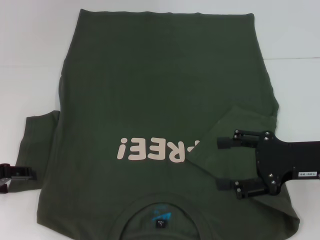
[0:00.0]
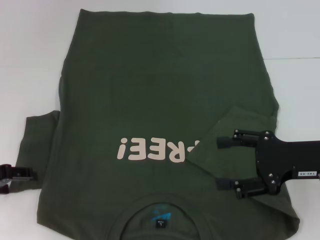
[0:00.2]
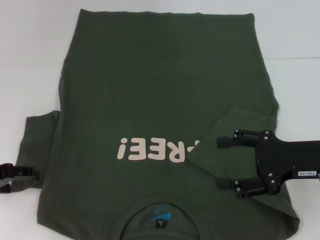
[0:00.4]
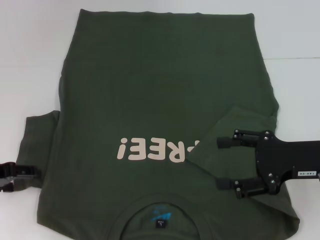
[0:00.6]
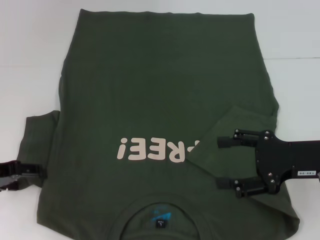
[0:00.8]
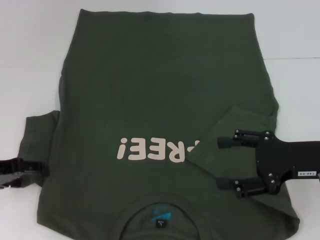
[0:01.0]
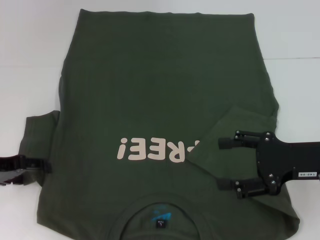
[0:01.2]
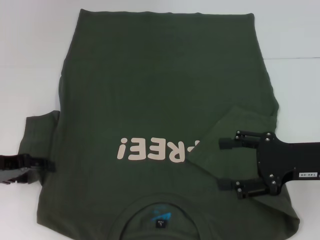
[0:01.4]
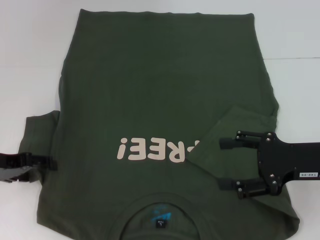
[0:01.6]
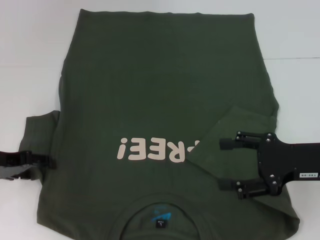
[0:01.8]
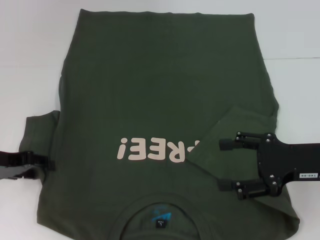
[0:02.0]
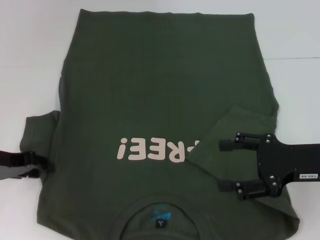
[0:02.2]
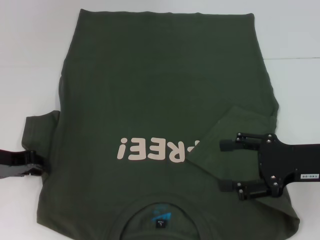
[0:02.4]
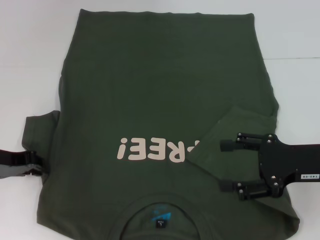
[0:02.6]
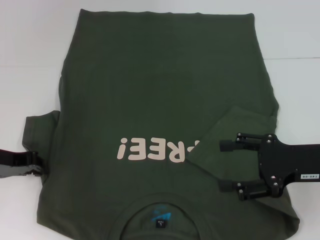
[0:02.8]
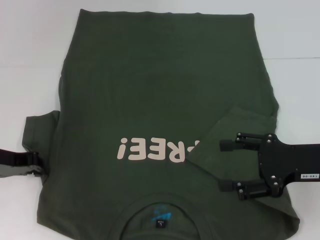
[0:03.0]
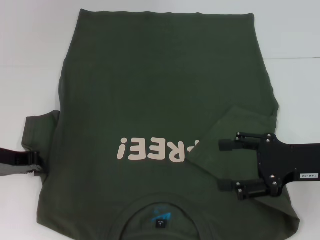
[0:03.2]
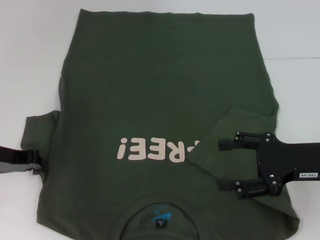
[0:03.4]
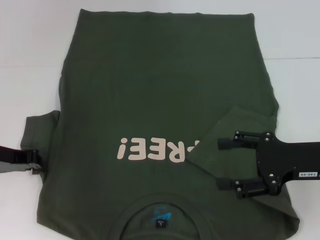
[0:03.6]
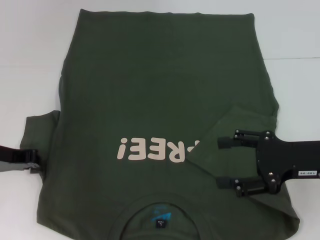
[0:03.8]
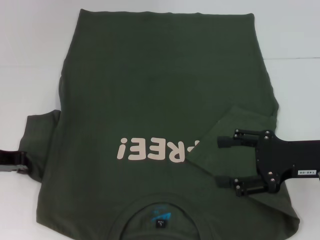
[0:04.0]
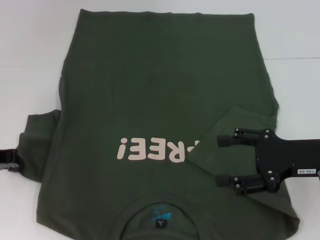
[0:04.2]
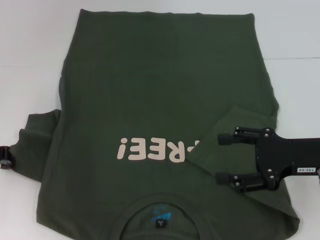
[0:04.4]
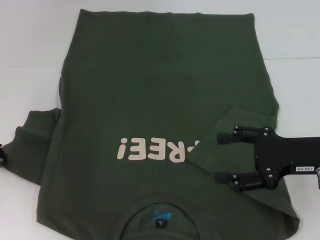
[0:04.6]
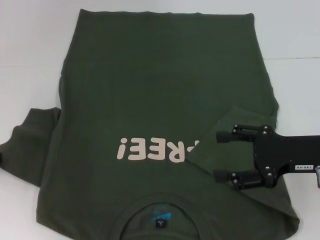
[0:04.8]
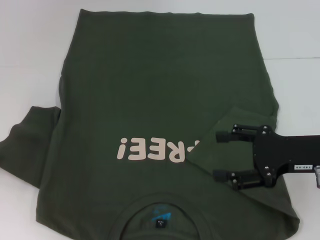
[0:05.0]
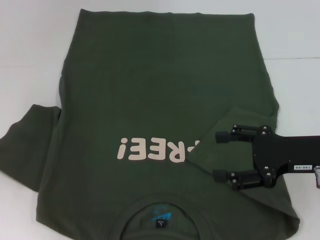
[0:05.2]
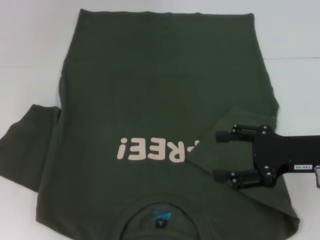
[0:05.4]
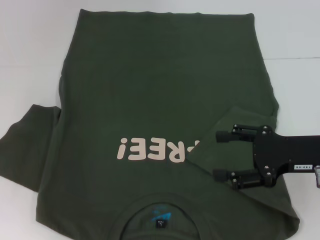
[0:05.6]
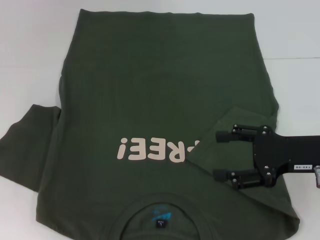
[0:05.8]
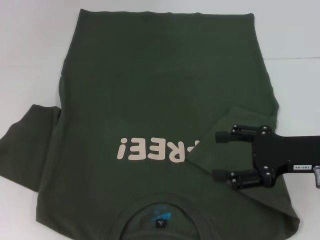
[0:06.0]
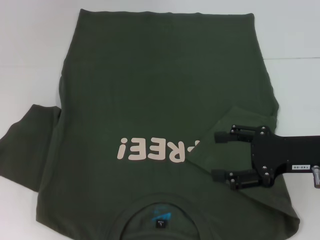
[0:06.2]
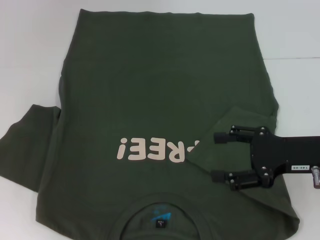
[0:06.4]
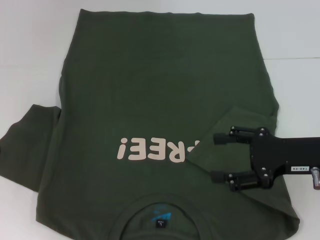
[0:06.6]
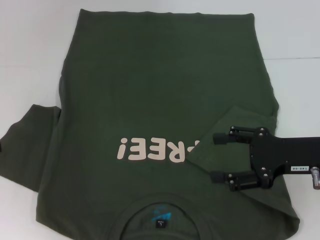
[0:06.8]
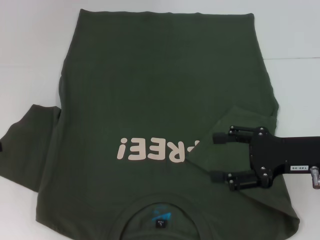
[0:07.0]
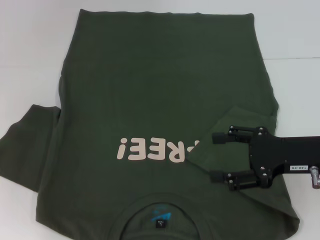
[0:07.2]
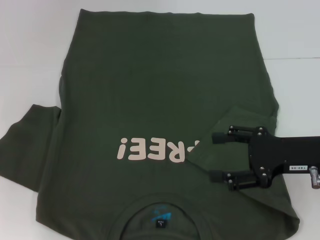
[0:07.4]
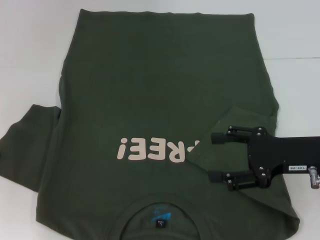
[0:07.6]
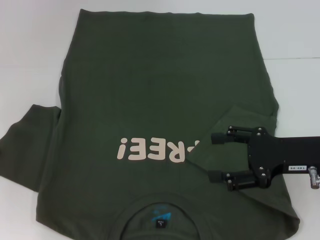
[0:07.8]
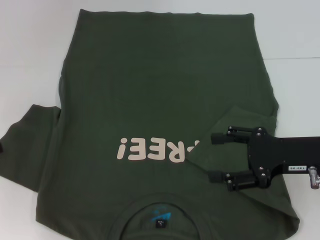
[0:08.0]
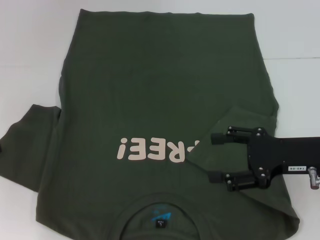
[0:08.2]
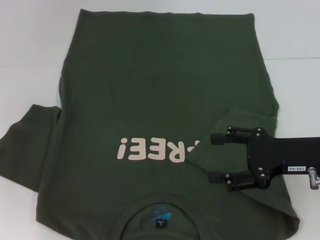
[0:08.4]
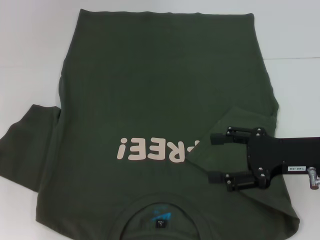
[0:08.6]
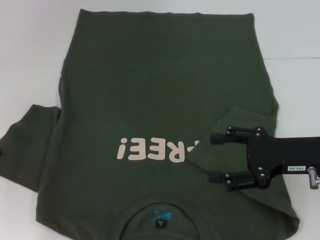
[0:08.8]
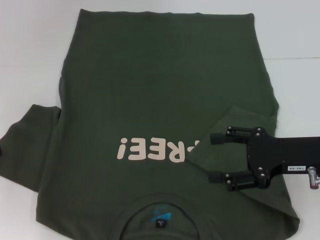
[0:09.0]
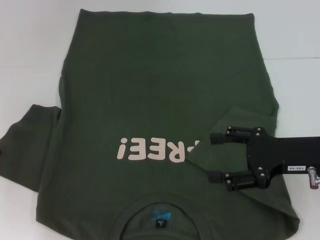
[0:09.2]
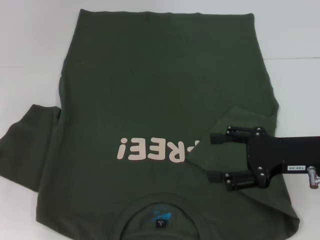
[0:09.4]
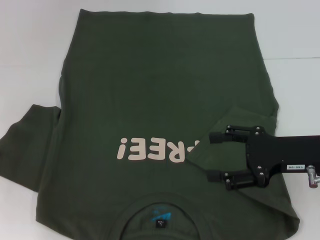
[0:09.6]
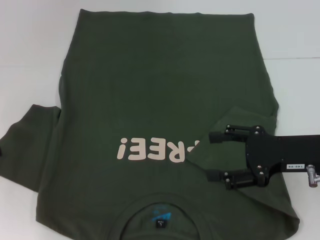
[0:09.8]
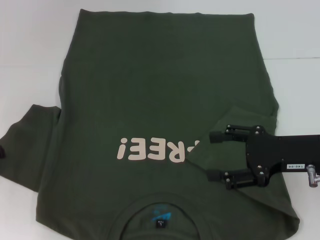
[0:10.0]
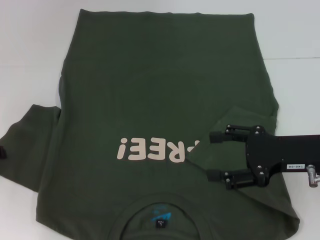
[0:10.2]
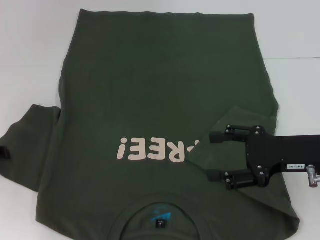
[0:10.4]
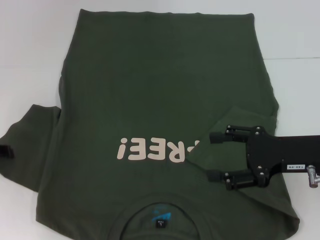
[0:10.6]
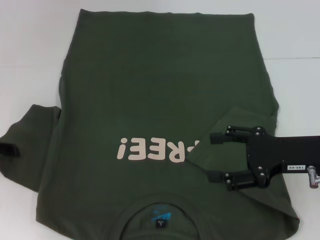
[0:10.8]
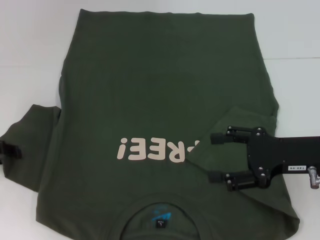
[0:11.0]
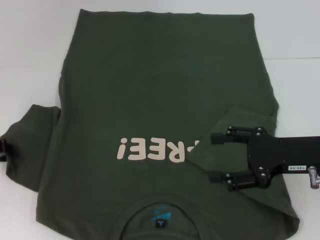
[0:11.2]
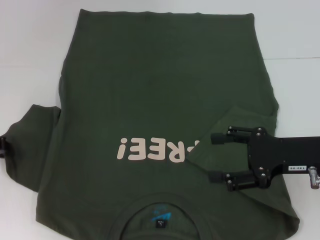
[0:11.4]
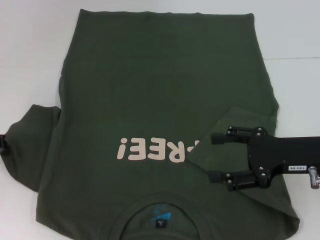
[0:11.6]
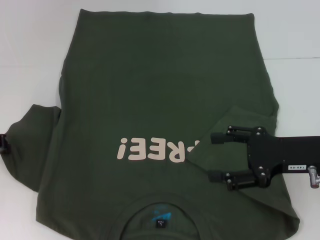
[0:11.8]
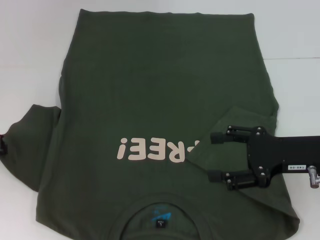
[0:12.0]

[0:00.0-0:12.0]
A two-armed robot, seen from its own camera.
0:00.0 to 0:01.6: The grippers make only small movements.
0:01.6 to 0:03.0: The left gripper closes.
0:03.0 to 0:04.4: The grippers stay close to where they were, moving slightly.
0:04.4 to 0:06.0: There are only small adjustments of the grippers.
0:07.6 to 0:09.0: Neither gripper changes place.
0:09.0 to 0:10.4: Both grippers stay put.

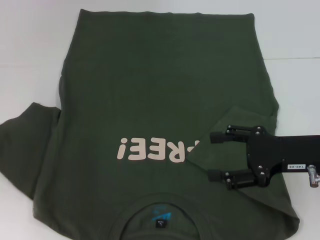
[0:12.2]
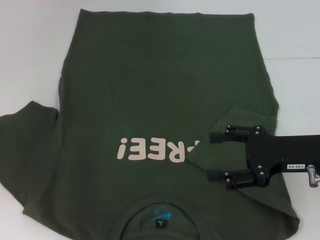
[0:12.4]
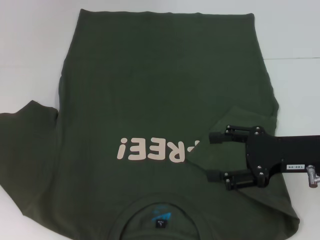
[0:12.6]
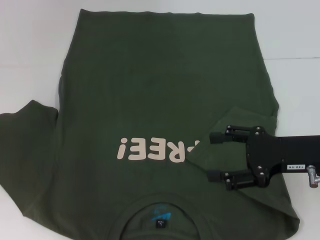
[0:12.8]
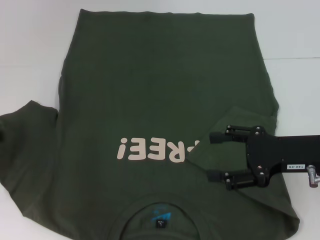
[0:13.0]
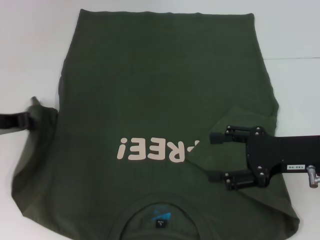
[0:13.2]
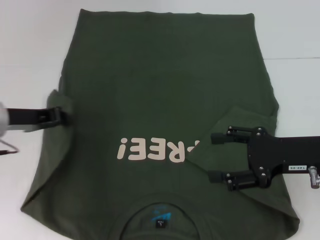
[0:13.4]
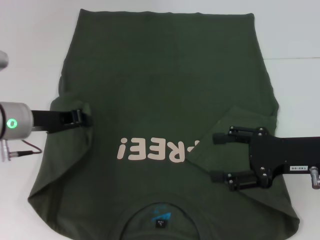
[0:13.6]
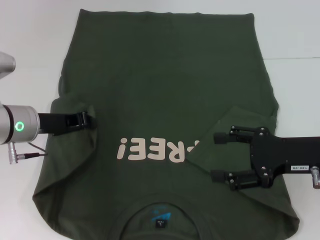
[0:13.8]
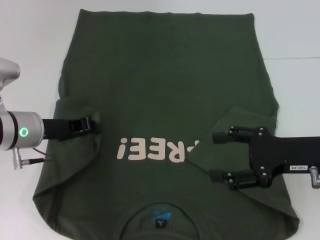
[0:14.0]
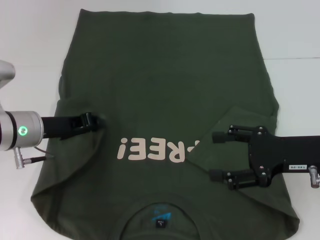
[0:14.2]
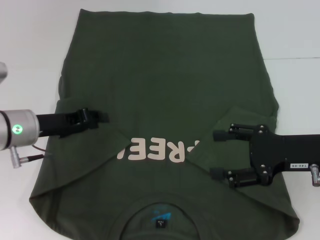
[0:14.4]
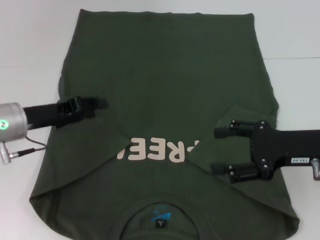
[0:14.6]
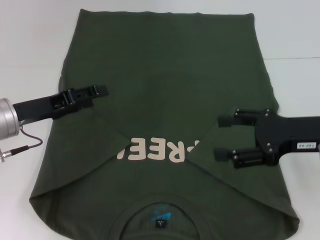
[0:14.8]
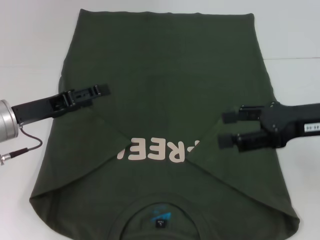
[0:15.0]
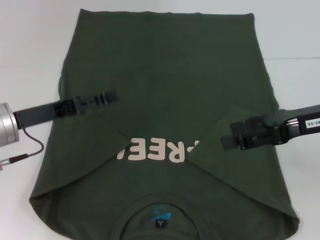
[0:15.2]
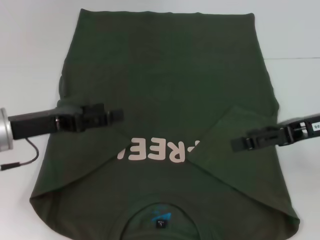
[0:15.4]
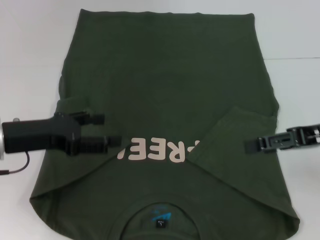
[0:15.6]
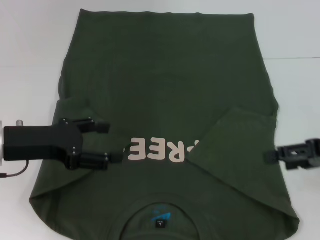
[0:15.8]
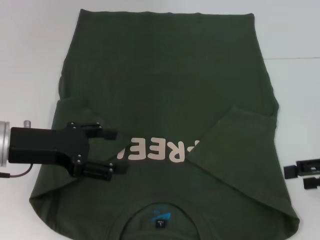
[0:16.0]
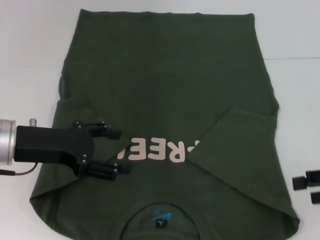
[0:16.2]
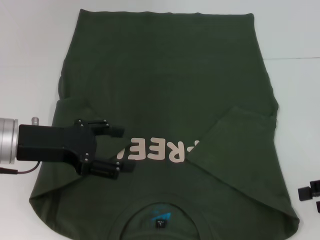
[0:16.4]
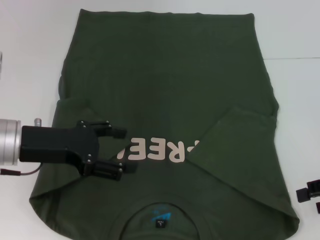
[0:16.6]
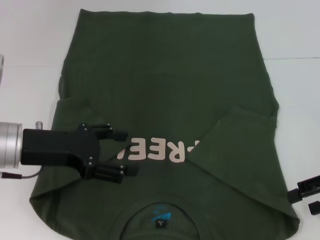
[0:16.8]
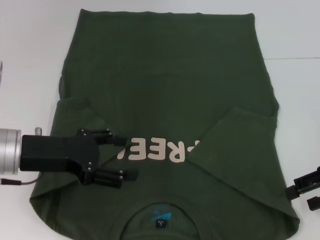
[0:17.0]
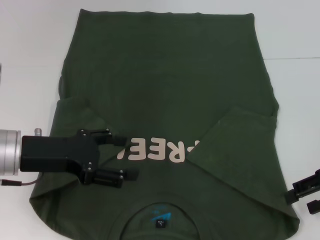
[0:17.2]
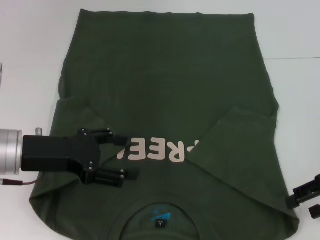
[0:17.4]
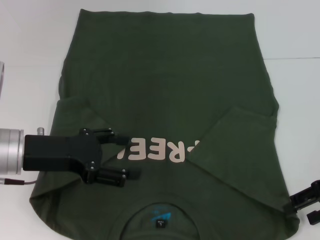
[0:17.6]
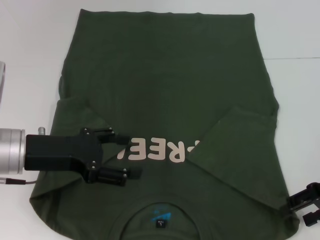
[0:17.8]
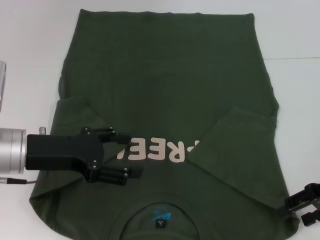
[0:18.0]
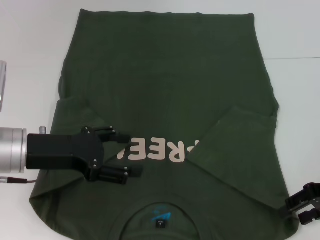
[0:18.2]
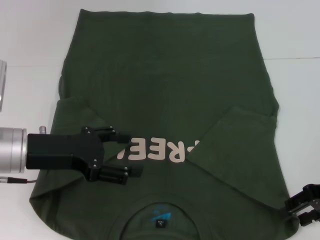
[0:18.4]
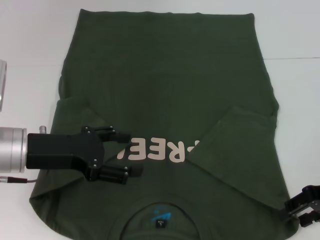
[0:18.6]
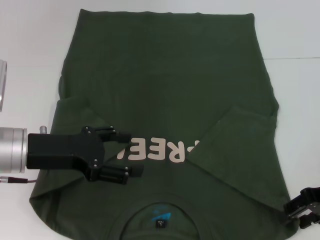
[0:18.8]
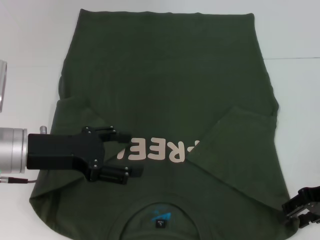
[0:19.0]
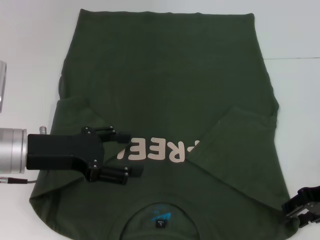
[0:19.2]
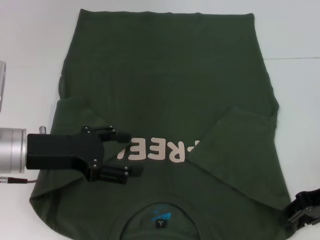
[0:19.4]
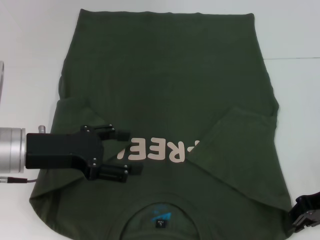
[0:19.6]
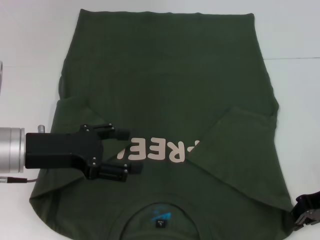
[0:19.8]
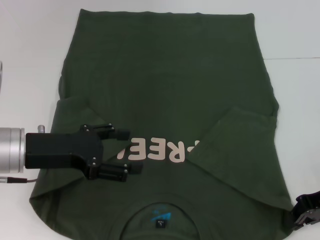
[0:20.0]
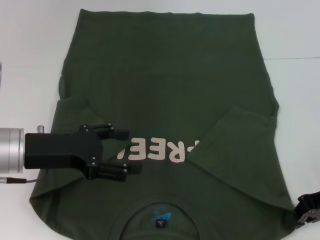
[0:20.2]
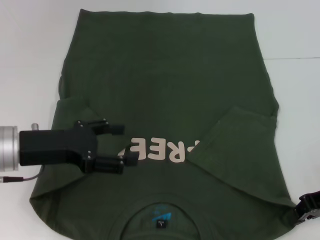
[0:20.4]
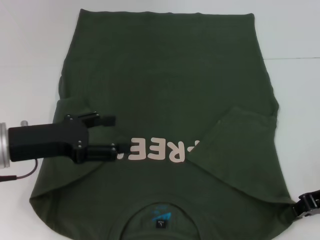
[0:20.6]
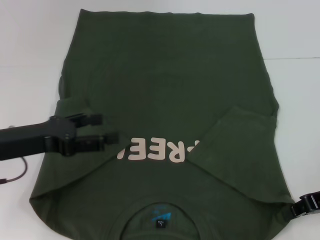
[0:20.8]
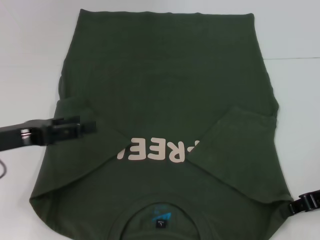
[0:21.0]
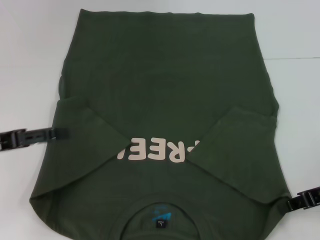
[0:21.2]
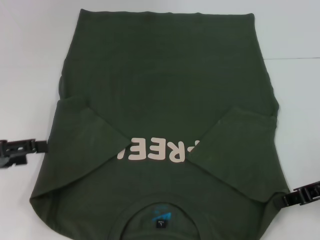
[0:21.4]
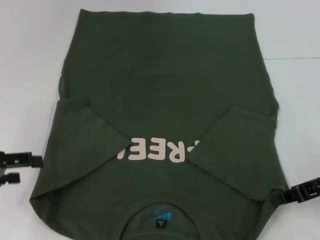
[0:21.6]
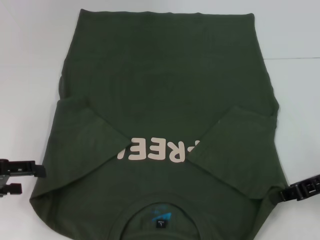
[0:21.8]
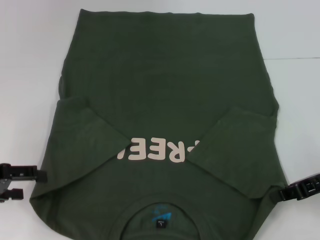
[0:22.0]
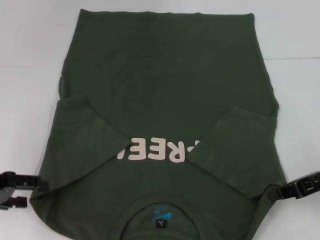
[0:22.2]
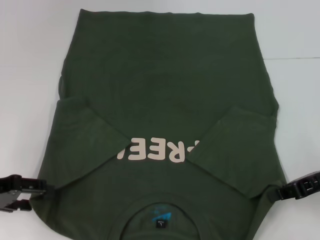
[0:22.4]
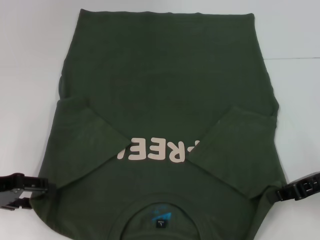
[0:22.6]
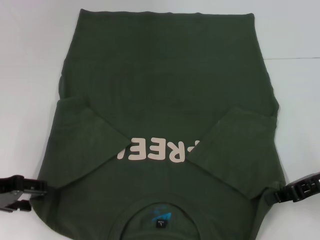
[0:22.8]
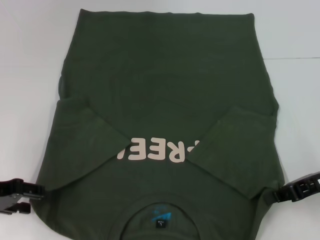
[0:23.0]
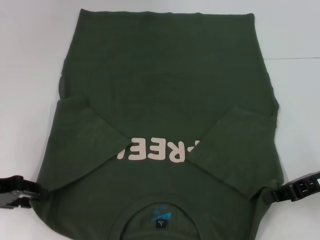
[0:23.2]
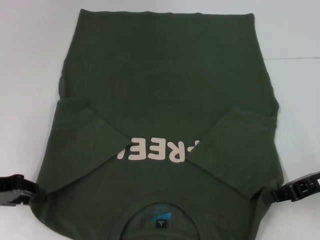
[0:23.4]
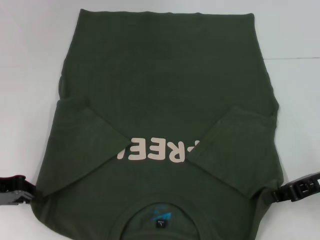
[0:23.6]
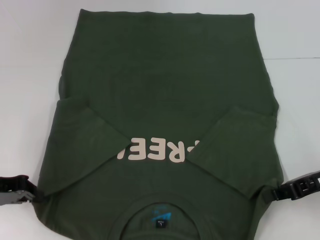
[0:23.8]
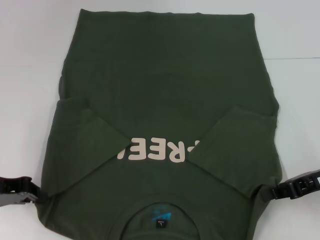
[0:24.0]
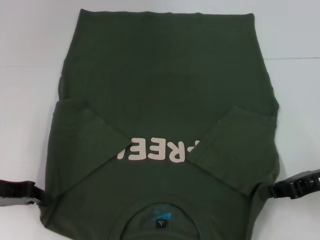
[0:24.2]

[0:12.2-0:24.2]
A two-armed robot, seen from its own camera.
Step, 0:12.2 to 0:14.2: Fold the bottom left sleeve with your left hand.
Step, 0:14.4 to 0:20.4: Grab the bottom right corner with your right hand.
Step, 0:20.6 to 0:23.8: Grab the bottom left corner with your left hand.
0:12.2 to 0:13.8: The left gripper is displaced to the right by approximately 10 cm.
0:13.8 to 0:15.2: The right gripper is displaced upward by about 5 cm, while the left gripper opens up.
0:15.2 to 0:16.6: The right gripper shifts some 10 cm to the right.
0:16.6 to 0:18.2: The right gripper moves about 5 cm.
0:18.2 to 0:19.8: The right gripper closes.
0:19.8 to 0:21.2: The left gripper travels to the left by roughly 10 cm.
0:22.6 to 0:24.2: The left gripper closes.
